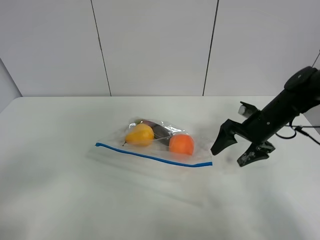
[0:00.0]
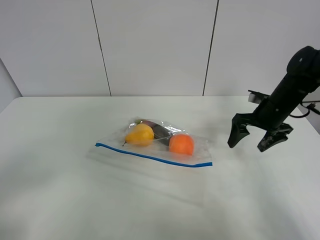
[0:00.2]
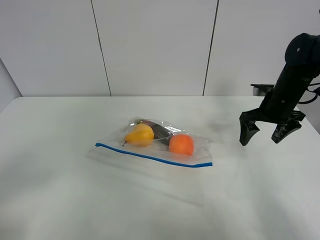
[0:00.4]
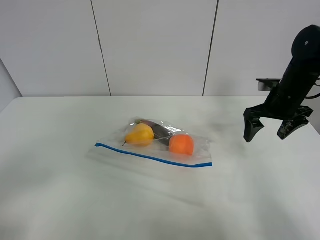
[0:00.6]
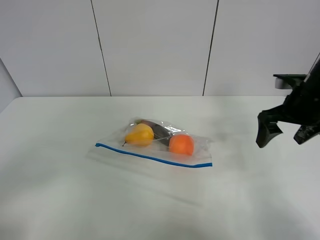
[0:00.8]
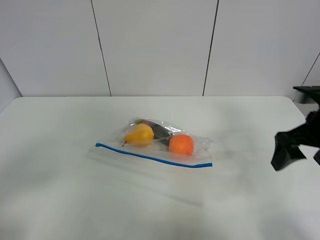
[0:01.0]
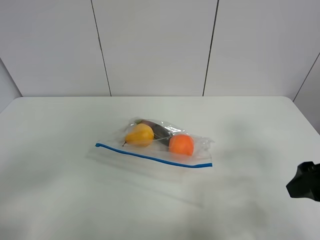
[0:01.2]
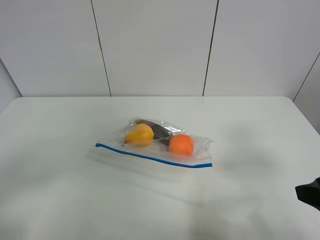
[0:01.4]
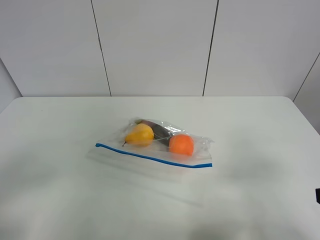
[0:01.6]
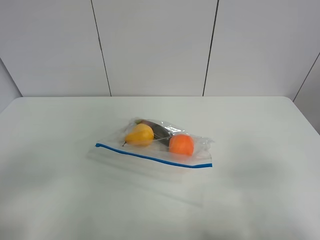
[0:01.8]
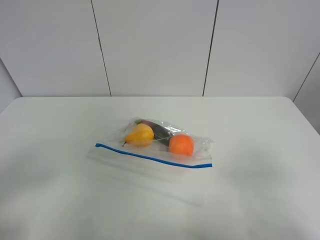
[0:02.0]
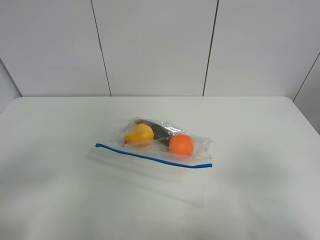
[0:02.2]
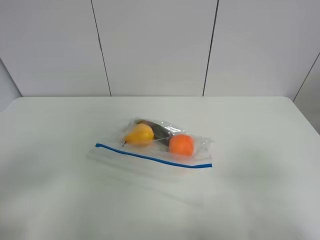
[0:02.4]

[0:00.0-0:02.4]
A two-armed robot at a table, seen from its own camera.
0:00.0 to 0:01.2: The right gripper shifts approximately 25 cm backward and upward.
0:01.2 to 0:02.4: The right gripper travels backward by roughly 15 cm.

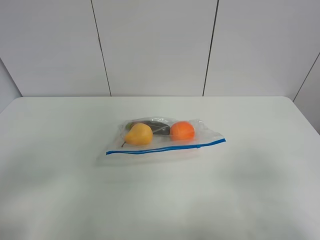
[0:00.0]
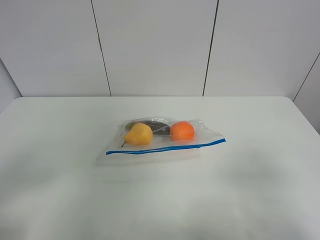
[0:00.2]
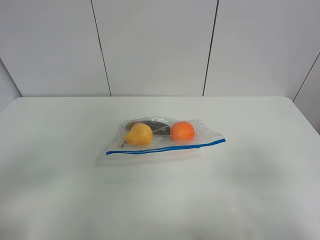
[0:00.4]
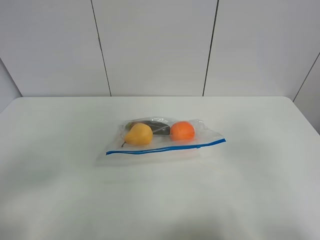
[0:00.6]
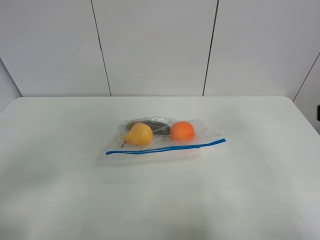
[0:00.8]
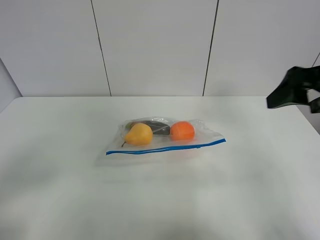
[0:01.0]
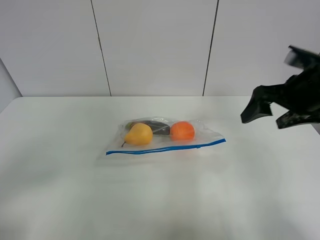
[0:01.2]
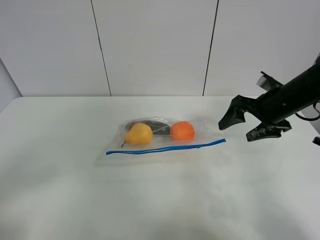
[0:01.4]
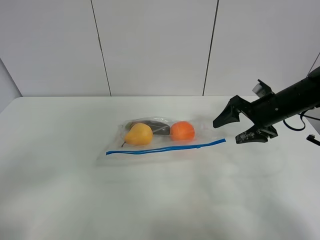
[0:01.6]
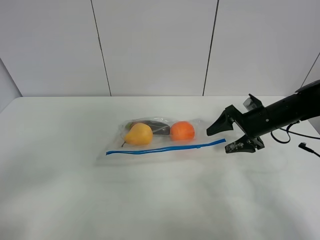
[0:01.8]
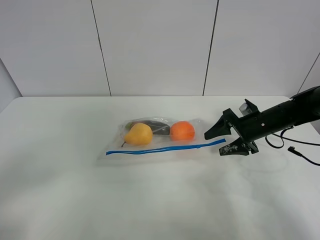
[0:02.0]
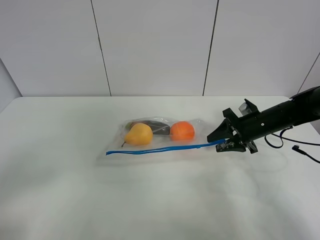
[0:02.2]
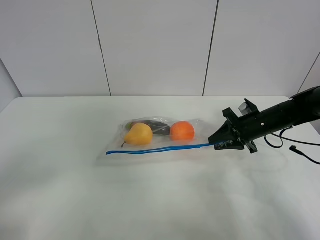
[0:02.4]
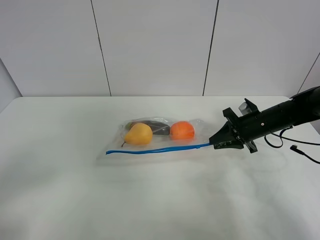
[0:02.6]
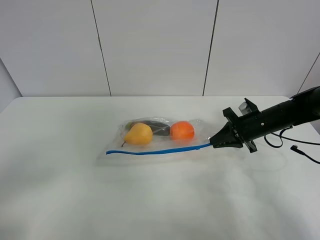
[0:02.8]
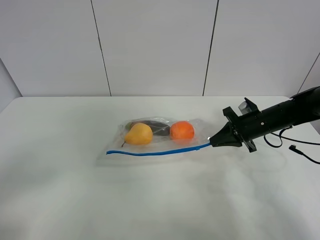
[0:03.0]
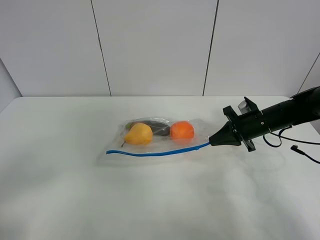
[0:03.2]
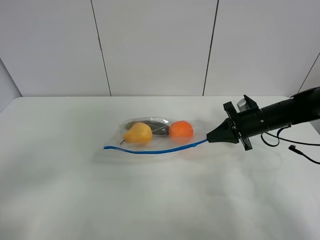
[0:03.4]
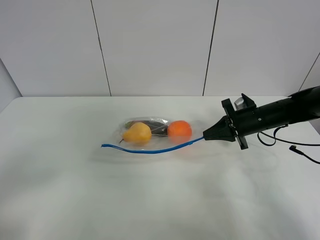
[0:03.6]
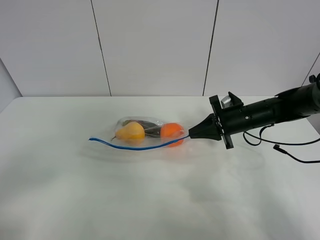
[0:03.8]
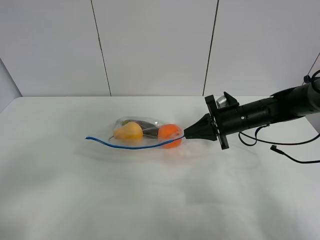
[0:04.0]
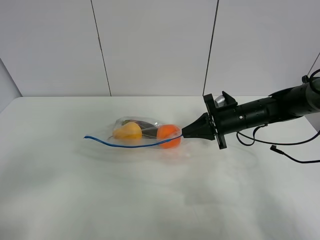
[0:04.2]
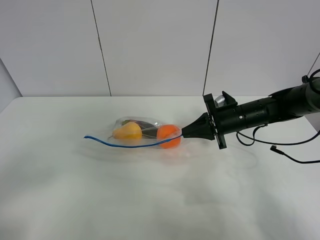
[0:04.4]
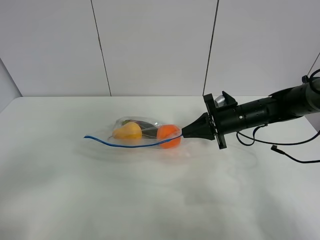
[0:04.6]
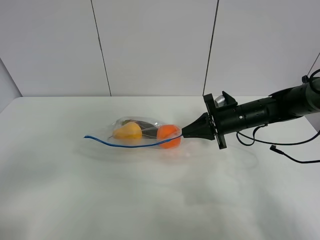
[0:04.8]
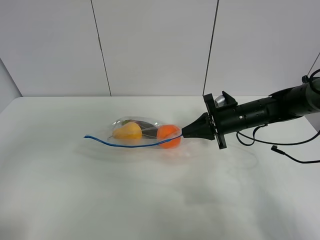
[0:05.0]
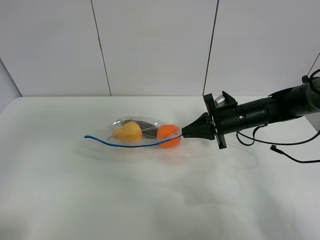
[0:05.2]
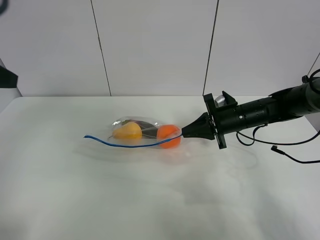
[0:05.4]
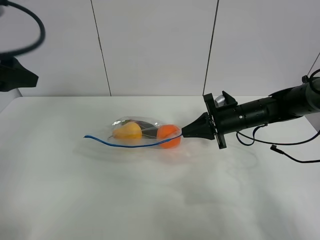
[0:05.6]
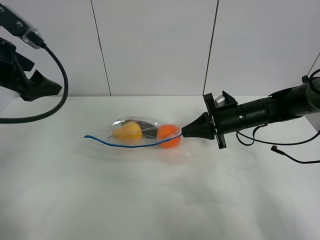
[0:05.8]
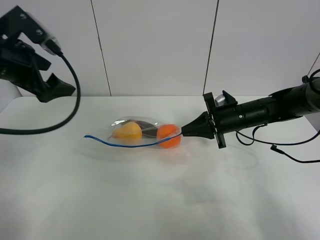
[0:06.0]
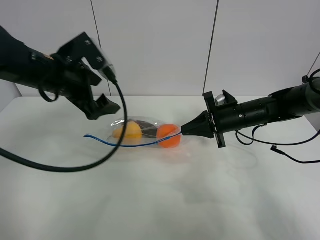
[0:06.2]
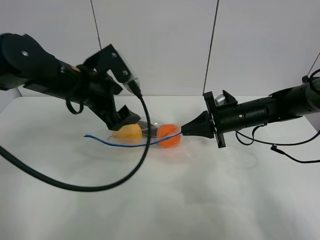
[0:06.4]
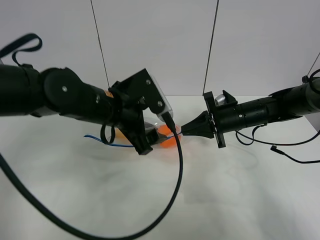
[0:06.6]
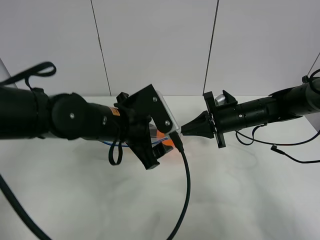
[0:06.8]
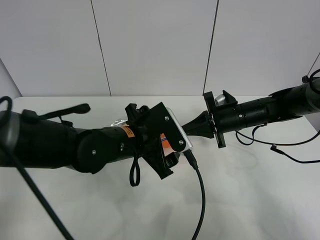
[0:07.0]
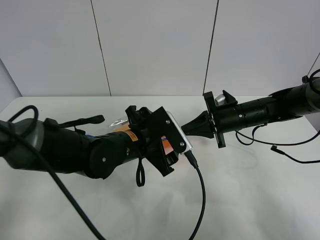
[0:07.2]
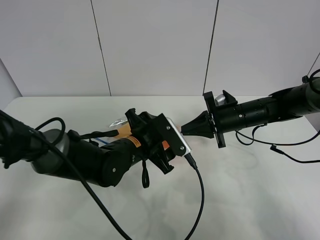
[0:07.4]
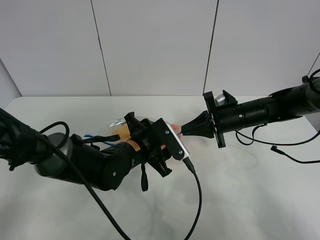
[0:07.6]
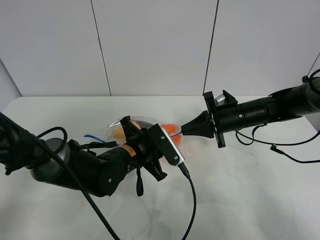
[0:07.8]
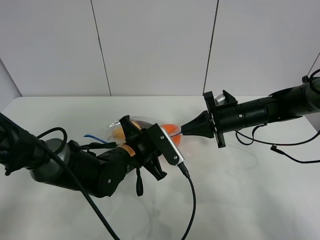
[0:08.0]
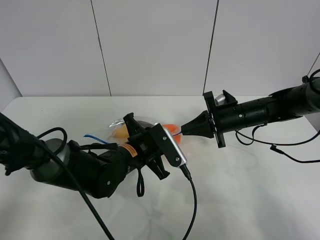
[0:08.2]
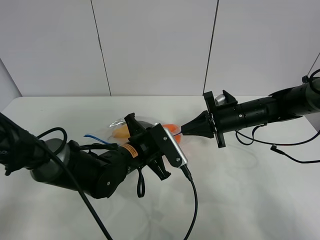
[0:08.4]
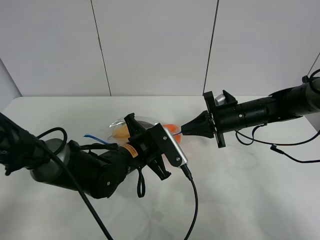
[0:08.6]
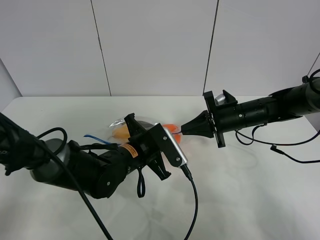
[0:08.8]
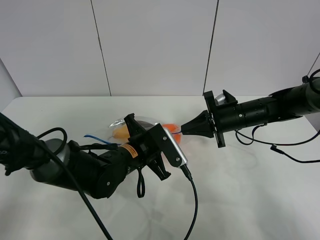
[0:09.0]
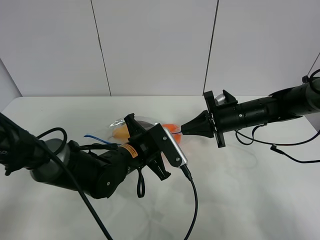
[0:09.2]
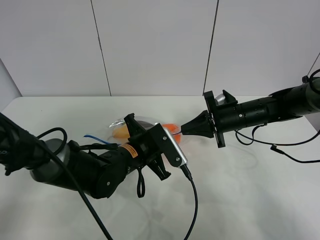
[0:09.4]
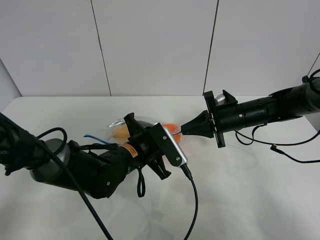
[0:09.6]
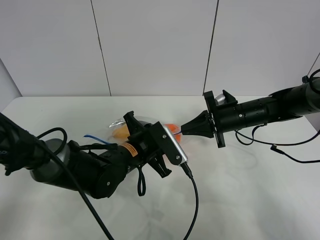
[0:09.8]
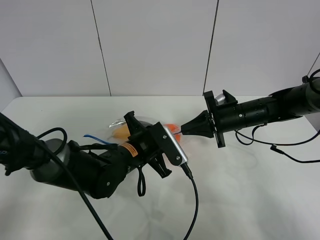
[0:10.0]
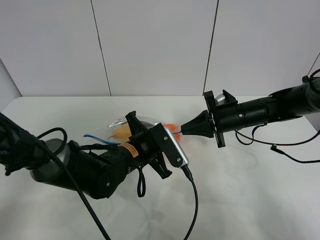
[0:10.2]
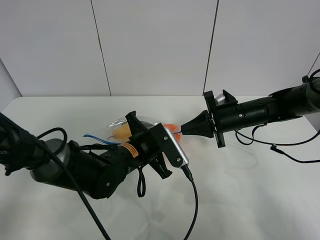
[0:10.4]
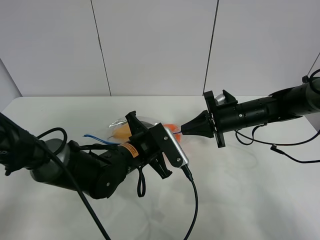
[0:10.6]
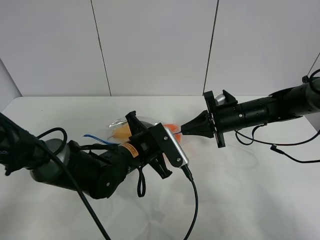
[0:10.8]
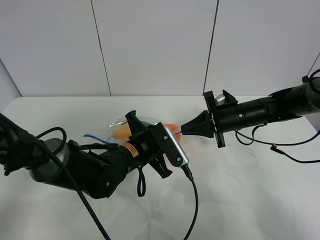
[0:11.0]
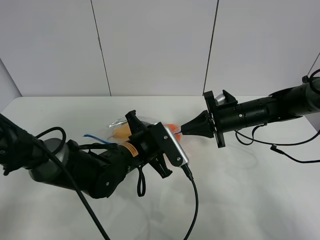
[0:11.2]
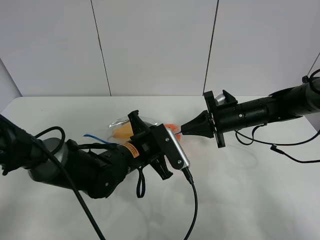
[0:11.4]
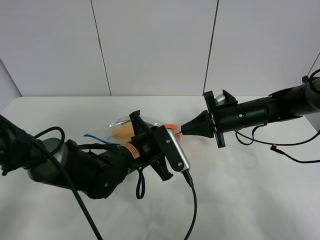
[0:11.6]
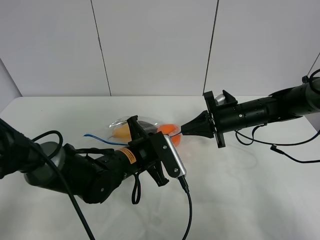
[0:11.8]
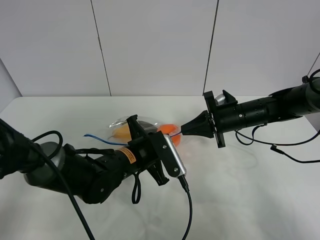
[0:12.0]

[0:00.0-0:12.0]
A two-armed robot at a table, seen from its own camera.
Step, 0:00.0 to 0:03.0: Grasp the fruit bag with right gripper.
Step, 0:03.2 to 0:04.4: Lift the fruit bag with your right gripper.
0:00.0 to 0:01.6: The right gripper goes some 35 cm forward.
0:01.6 to 0:03.0: The right gripper shifts approximately 5 cm downward, and closes.
0:03.0 to 0:04.4: The right gripper goes some 5 cm to the left.
0:04.4 to 0:06.0: The left gripper travels forward by approximately 30 cm.
0:06.0 to 0:07.6: The left gripper heads to the right and downward, covering roughly 25 cm, and closes.
0:07.6 to 0:09.0: The left gripper closes up.
0:09.0 to 0:10.4: Both grippers stay about where they are.
0:10.4 to 0:12.0: The grippers make only small movements.

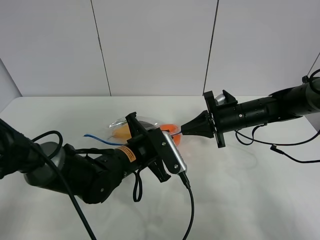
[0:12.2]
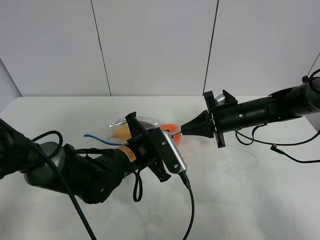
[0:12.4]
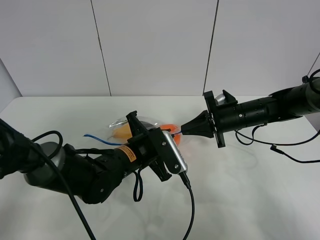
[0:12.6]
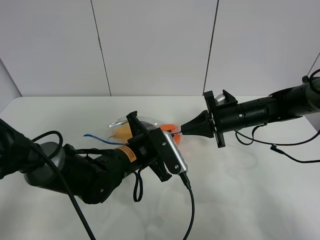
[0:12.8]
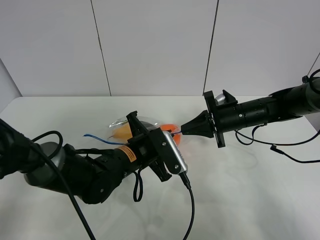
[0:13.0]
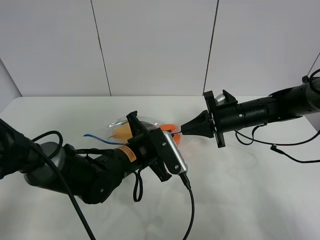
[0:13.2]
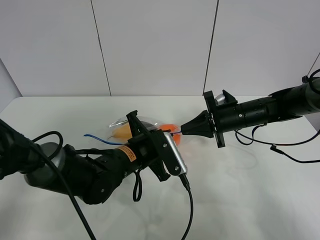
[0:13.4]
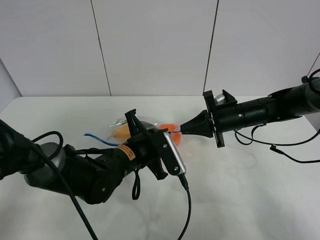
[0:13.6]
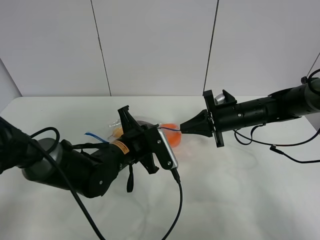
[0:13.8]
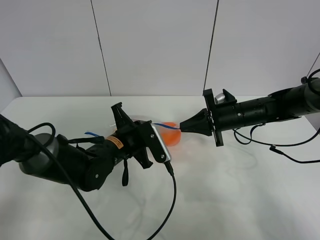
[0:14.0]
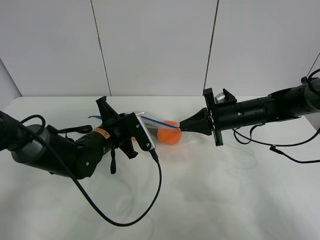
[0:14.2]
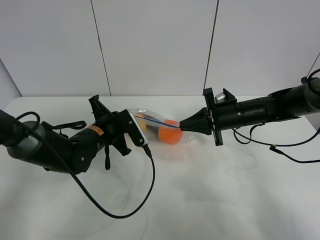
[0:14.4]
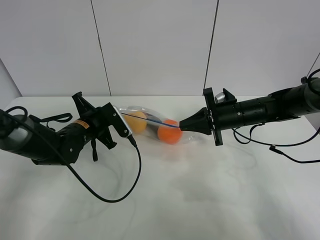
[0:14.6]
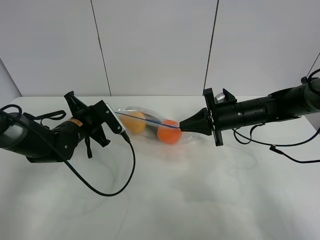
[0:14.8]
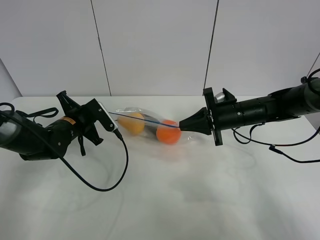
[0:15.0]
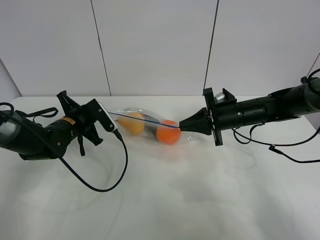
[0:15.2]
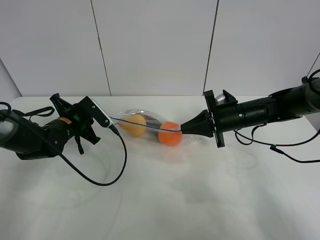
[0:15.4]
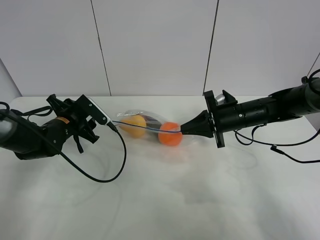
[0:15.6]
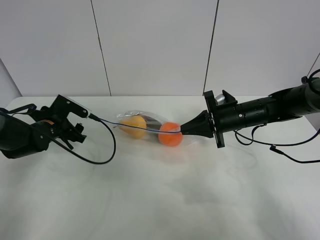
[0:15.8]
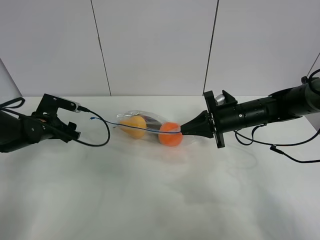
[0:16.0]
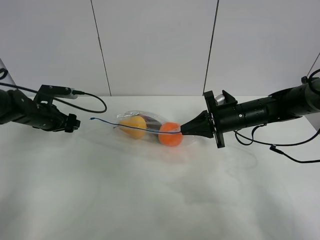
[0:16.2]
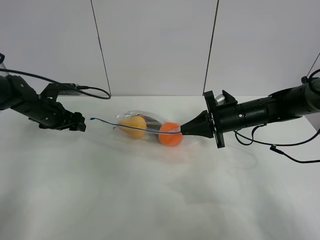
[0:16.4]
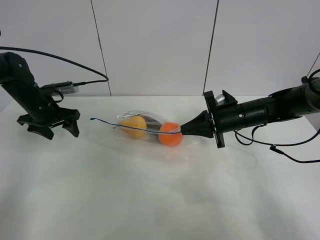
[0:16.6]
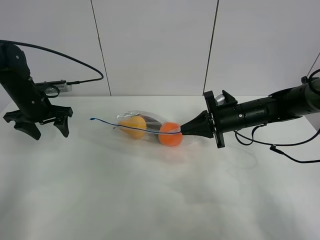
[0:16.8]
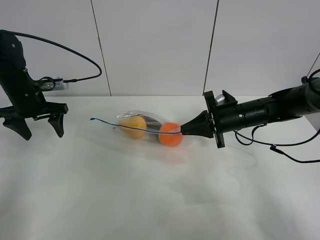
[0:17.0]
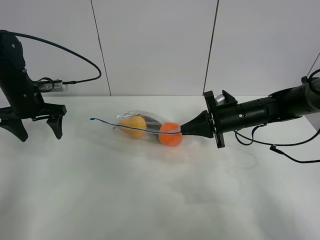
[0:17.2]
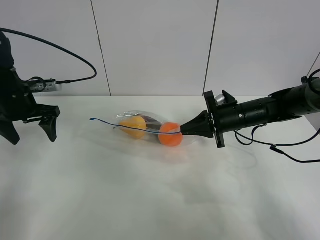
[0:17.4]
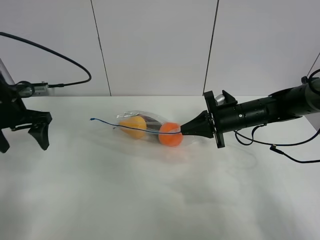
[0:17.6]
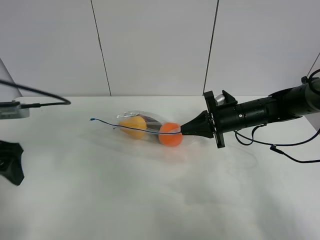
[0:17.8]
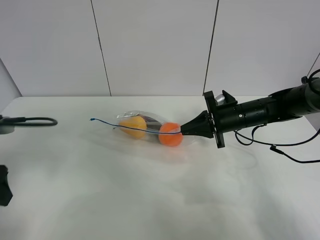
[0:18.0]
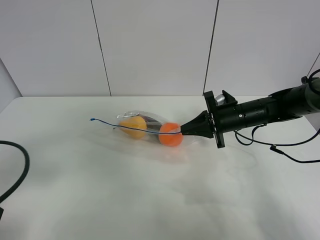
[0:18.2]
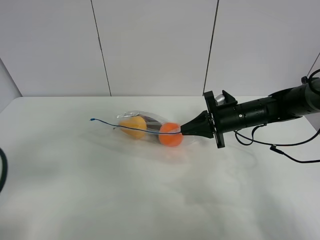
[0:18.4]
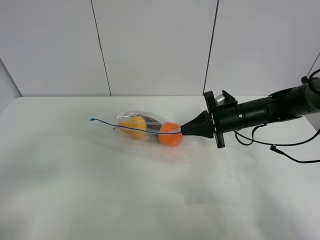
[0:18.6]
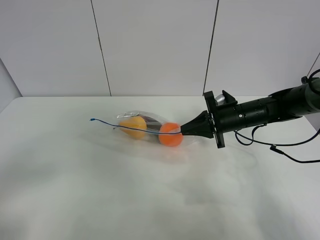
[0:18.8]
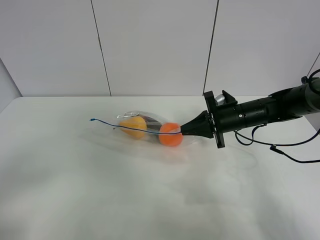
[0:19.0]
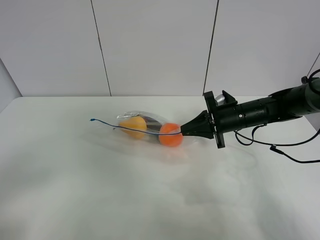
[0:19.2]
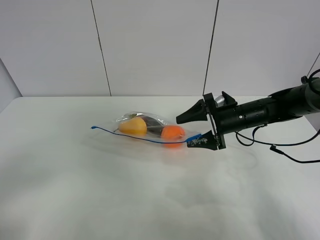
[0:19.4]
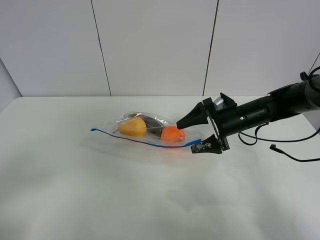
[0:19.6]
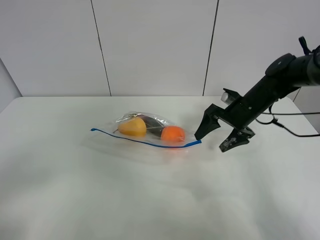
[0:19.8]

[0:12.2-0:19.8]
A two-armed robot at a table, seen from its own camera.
Step, 0:12.2 to 0:15.6: Pull the fruit bag with left gripper.
0:12.2 to 0:13.8: There are only small adjustments of the grippers.
0:13.8 to 0:15.2: The left gripper heads to the left and forward, covering approximately 15 cm.
0:15.2 to 0:16.8: The left gripper moves to the left and upward, some 10 cm, and opens.
0:16.8 to 0:18.2: The left gripper shifts some 30 cm backward.
0:18.2 to 0:19.8: The left gripper shifts roughly 10 cm backward, while the right gripper opens its fingers.
